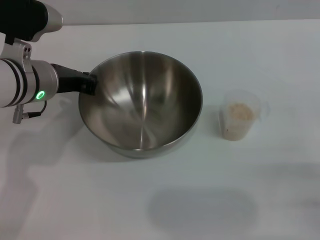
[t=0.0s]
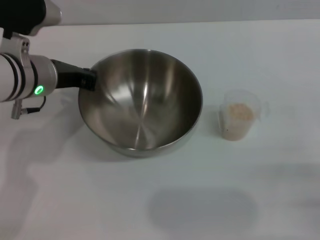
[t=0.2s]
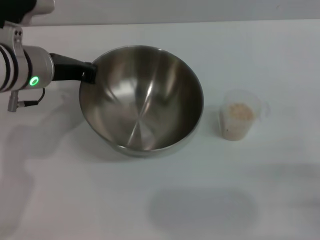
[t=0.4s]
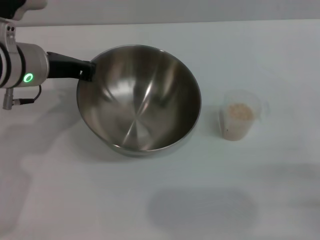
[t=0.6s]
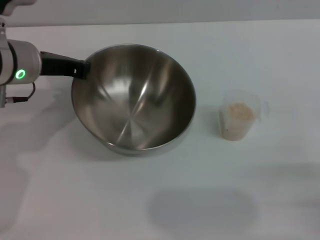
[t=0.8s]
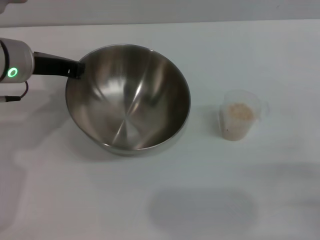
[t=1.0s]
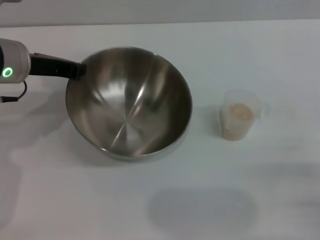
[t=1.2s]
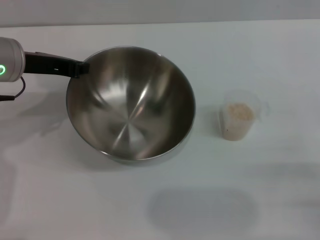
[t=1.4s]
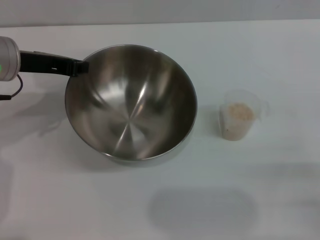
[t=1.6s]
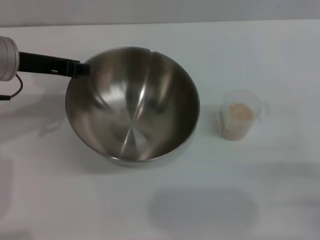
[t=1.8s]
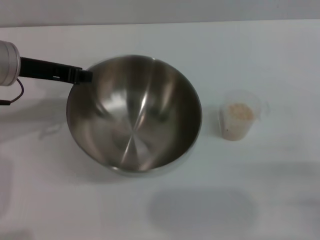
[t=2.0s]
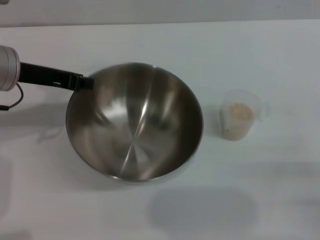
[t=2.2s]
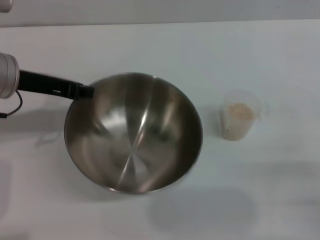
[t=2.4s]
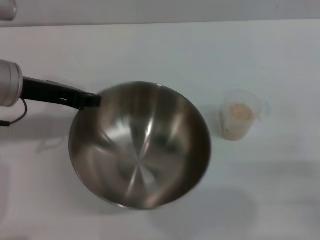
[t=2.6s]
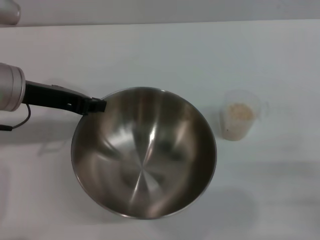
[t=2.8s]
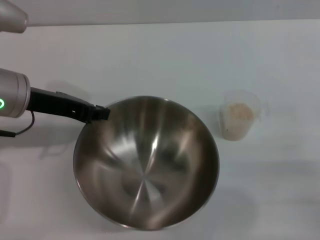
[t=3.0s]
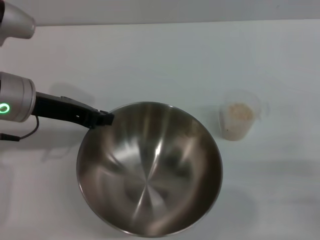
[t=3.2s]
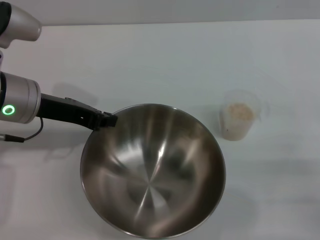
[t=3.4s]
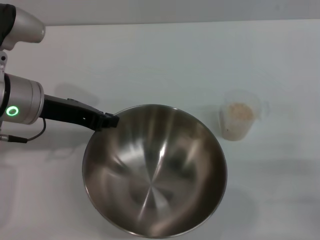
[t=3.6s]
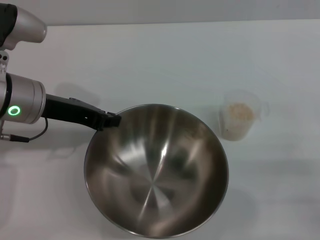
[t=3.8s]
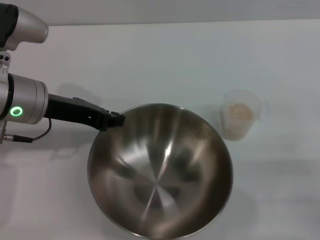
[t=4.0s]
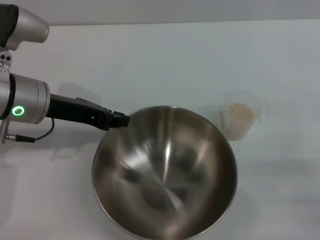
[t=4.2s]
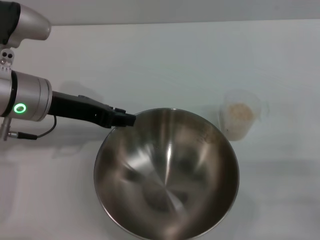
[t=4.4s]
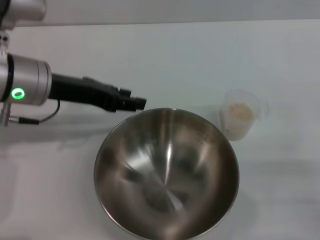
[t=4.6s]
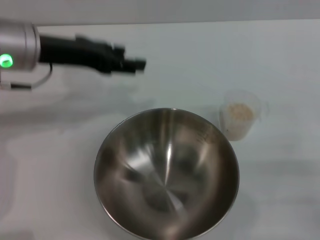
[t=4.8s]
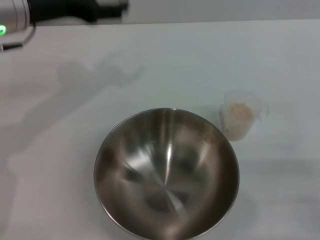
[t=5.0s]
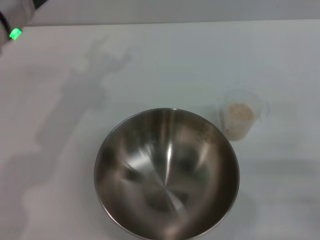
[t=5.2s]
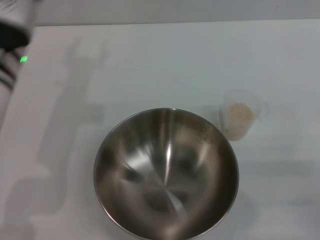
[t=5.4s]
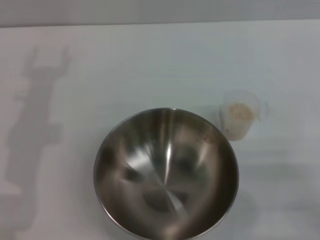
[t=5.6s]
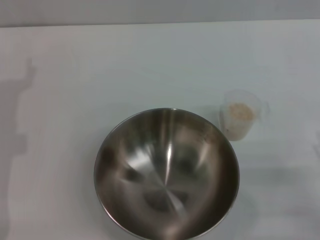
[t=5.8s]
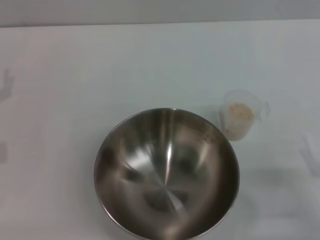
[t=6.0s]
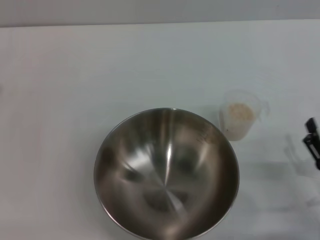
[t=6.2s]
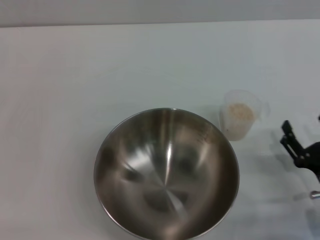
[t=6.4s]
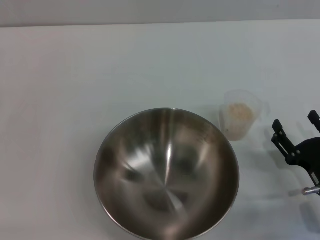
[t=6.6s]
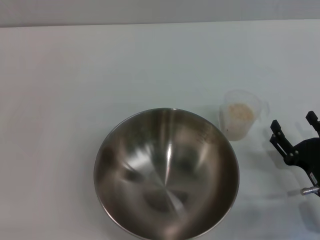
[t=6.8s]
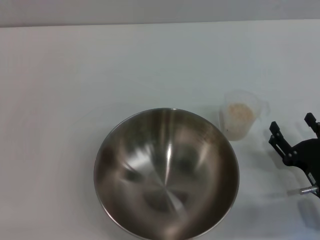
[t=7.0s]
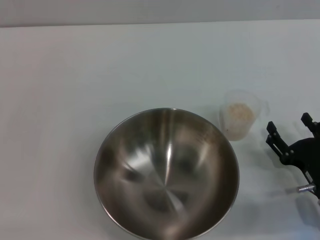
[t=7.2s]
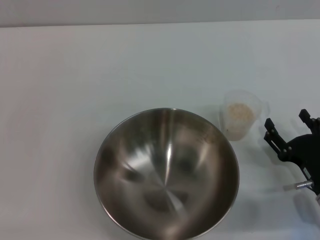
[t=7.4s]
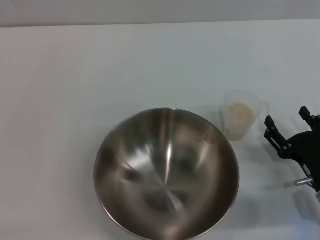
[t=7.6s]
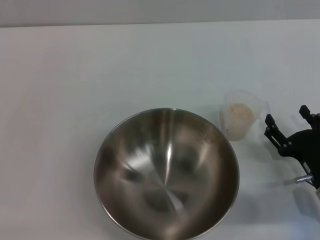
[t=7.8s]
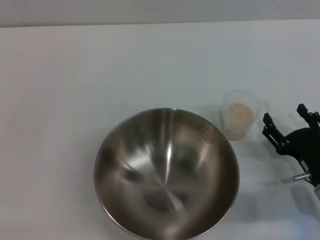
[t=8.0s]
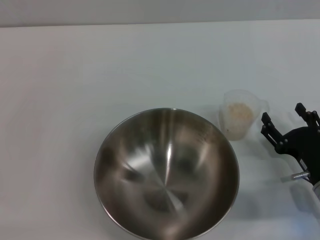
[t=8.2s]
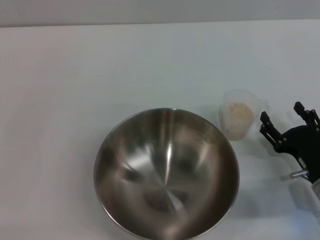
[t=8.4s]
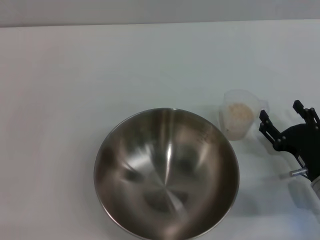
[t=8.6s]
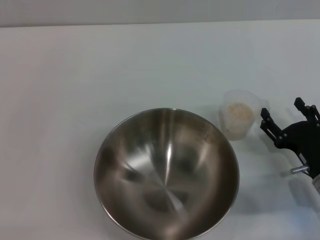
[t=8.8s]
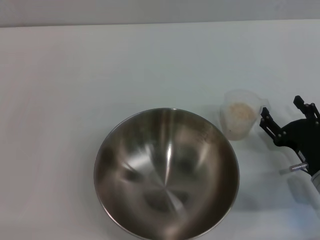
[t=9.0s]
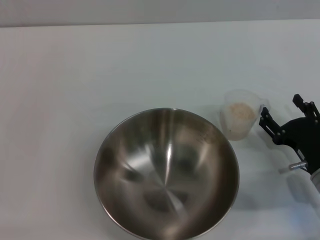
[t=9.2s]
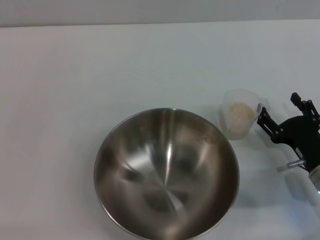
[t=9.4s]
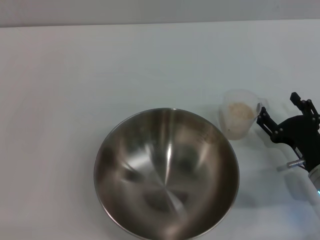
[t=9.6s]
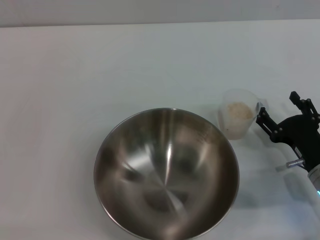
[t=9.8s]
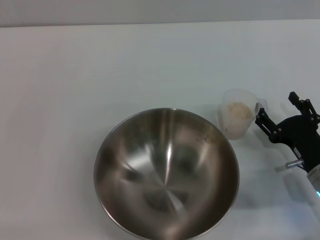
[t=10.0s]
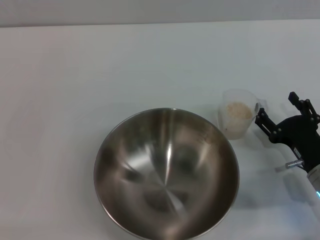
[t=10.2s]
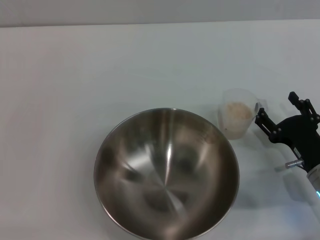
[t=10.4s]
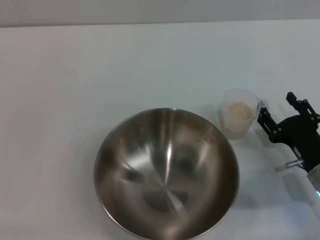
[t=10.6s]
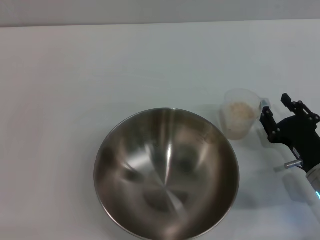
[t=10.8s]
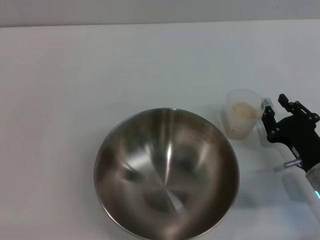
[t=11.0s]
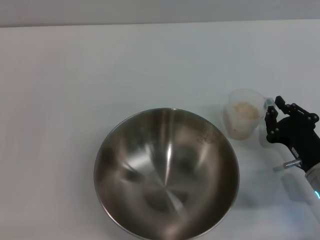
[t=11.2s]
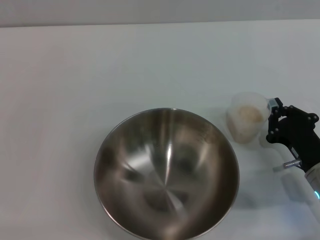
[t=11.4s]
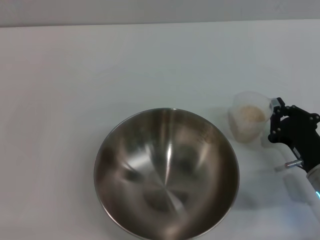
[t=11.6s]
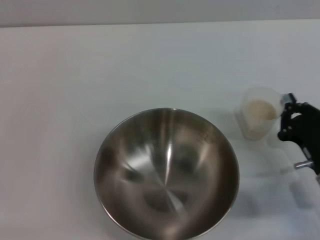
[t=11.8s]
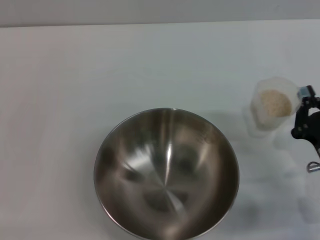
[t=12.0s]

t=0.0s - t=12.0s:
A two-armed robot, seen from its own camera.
Task of the whole recording: Place the bowl in the middle of the table with one hand and pour the rice from the grain cup into it with the other hand.
Step, t=0.6s - t=4.6s: Place the bowl in the center of view with the left gripper.
Step, t=4.8s - t=11.8s: Pick up the cup with rice in it with the right gripper.
t=0.0s - t=1.6s: The left gripper moves roughly 5 cm.
t=4.4s - t=6.0s: The left gripper travels to the left and downward by some 15 cm, and opens its fingers.
t=6.0s - t=7.6s: The right gripper goes about 5 cm forward.
t=7.6s - t=9.0s: The grippers stay close to where they were, moving slightly.
t=9.0s - t=10.4s: Neither gripper changes place.
t=10.4s - t=12.0s: The right gripper closes up.

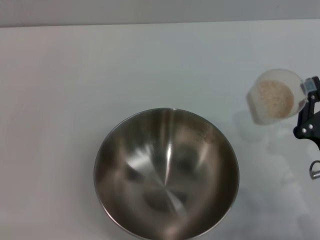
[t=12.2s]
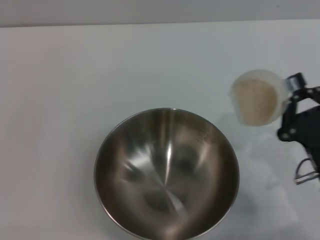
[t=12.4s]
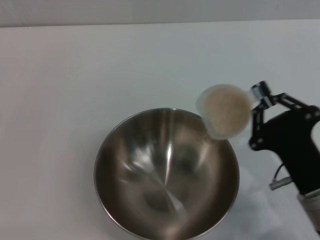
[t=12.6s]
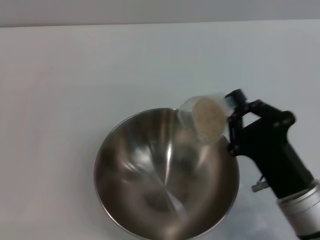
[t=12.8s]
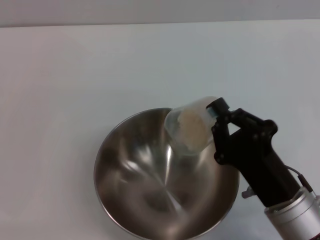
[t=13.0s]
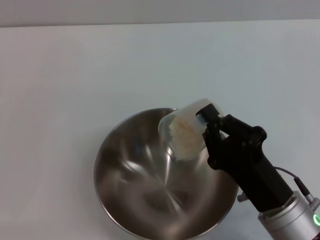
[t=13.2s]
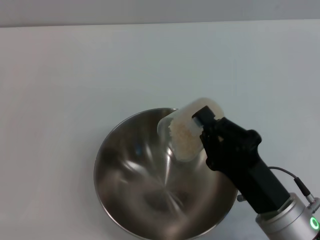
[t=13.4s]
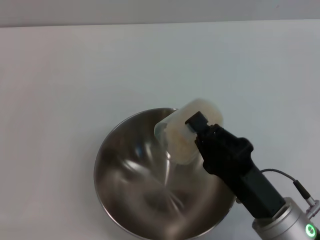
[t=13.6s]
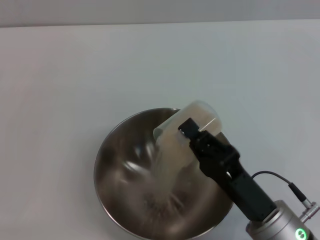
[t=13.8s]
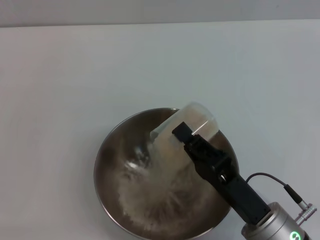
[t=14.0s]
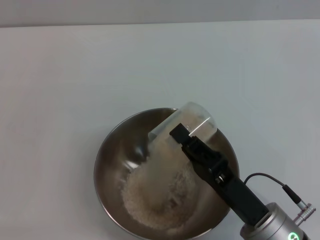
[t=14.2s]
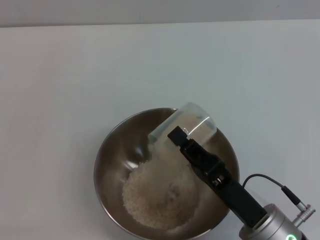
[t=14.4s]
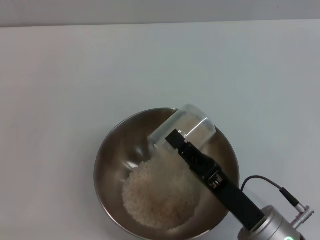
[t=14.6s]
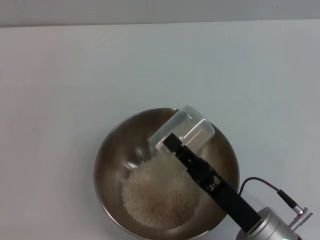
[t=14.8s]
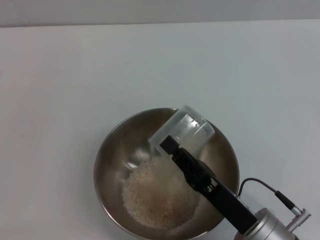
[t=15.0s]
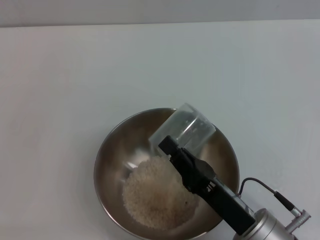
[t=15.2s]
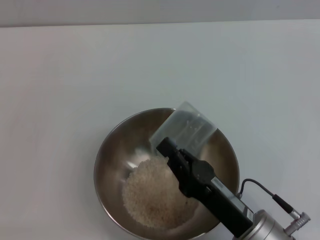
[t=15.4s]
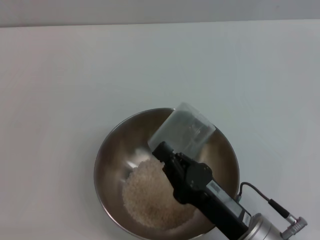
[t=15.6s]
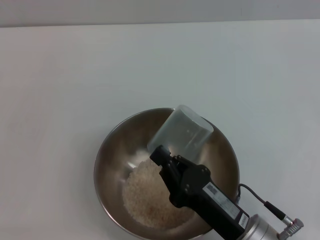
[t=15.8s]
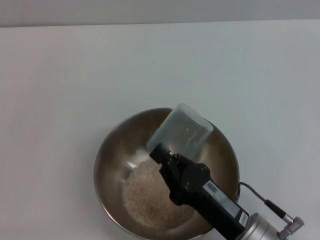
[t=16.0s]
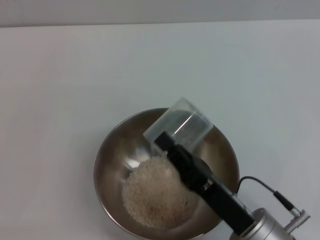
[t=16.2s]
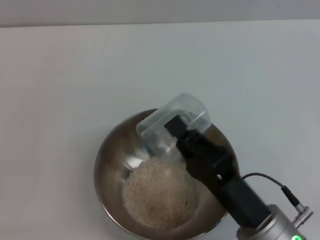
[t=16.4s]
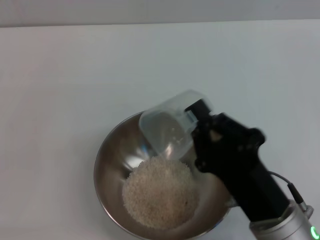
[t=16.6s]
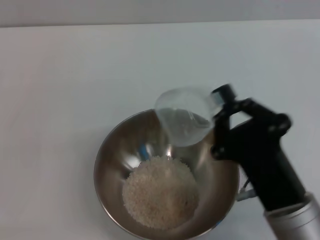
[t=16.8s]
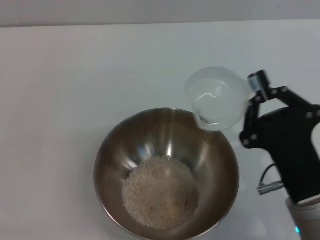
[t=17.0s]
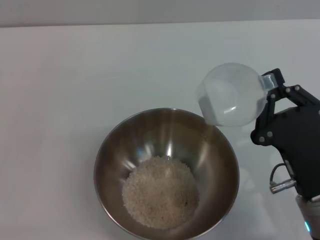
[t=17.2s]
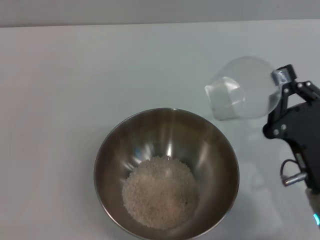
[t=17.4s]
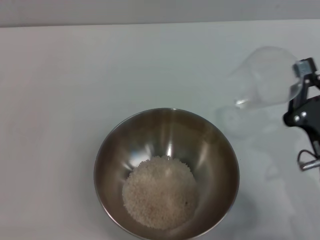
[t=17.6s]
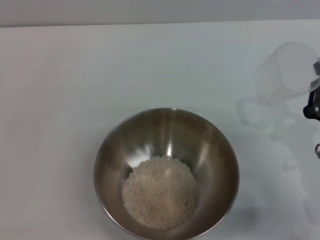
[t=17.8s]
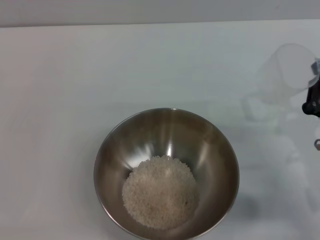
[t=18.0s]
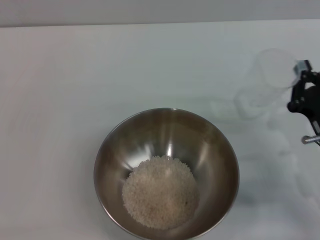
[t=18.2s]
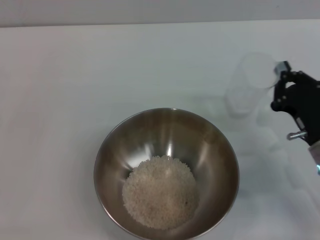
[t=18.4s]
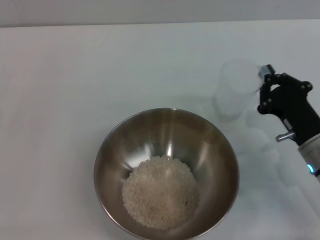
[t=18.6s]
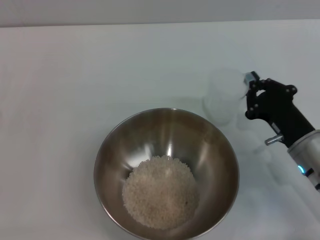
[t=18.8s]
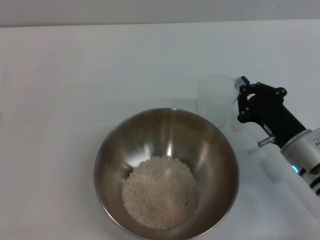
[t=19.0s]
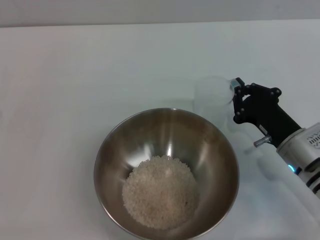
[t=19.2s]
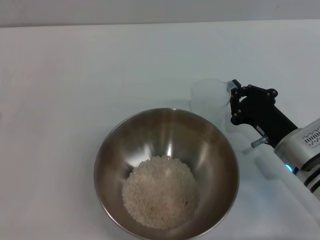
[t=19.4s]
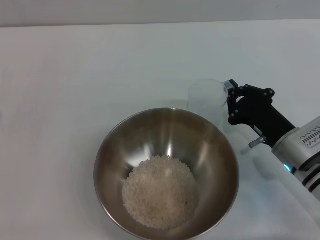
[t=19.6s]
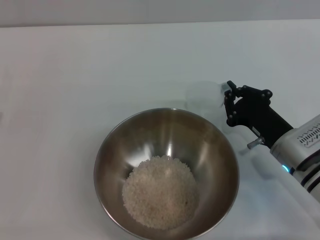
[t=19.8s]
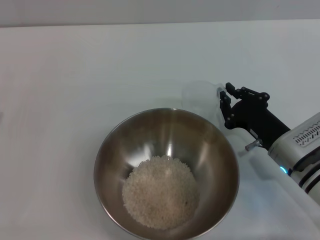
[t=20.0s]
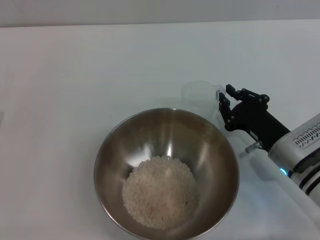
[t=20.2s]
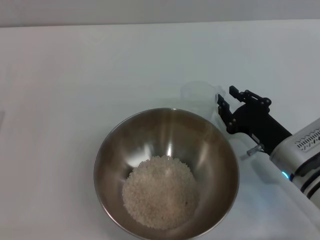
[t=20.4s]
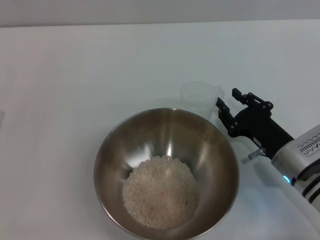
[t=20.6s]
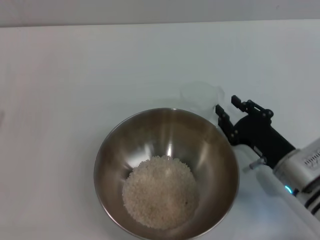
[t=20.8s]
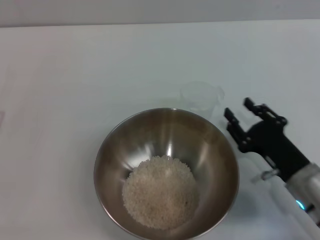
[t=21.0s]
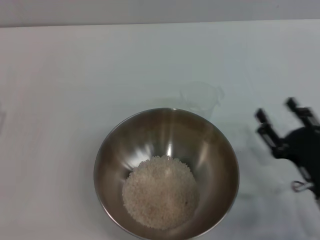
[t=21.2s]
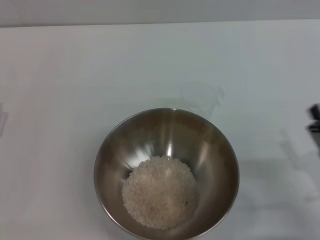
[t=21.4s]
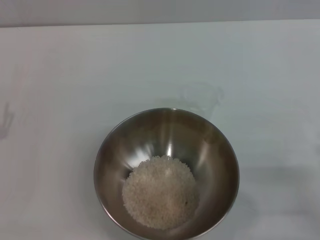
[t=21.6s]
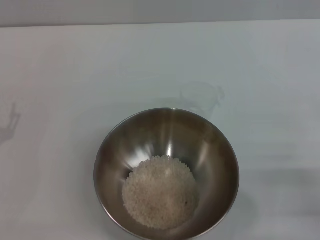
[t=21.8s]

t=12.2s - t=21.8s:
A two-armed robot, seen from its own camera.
Task of the whole recording: Place the bowl in the middle of the table with one hand and pour the rice from the grain cup into it with the other hand.
Step, t=12.2s - t=16.4s: Pour the rice from the cup into the bowl with the right gripper.
Step, t=16.6s - t=20.8s: Place the cup on the table with the right gripper.
t=12.2s - t=13.8s: The right gripper goes approximately 10 cm to the left.
t=15.4s - t=17.0s: The right gripper moves some 5 cm.
t=17.0s - t=18.6s: The right gripper is displaced forward and to the right by roughly 15 cm.
t=18.6s - t=20.2s: There are only small adjustments of the grippers.
t=20.2s - t=21.8s: The right gripper shifts about 20 cm backward and to the right, and opens.
